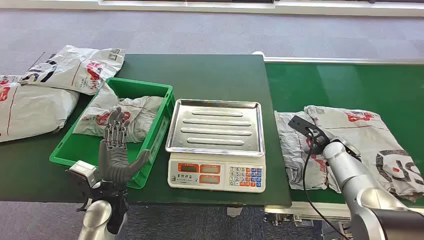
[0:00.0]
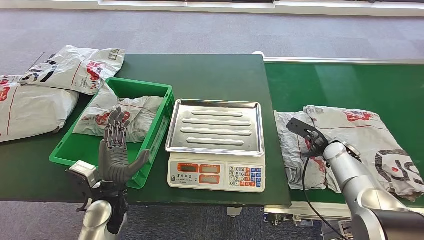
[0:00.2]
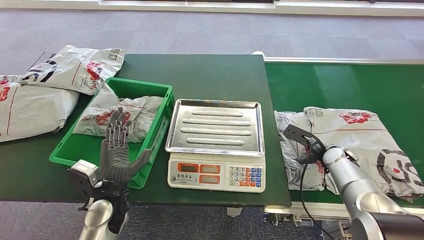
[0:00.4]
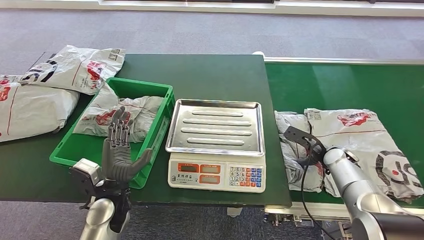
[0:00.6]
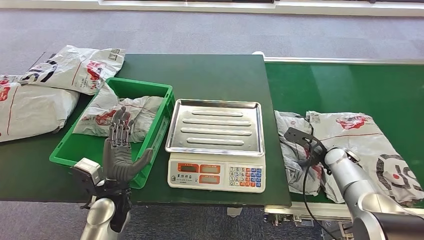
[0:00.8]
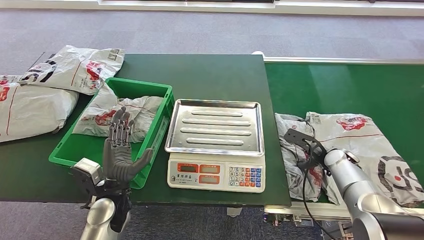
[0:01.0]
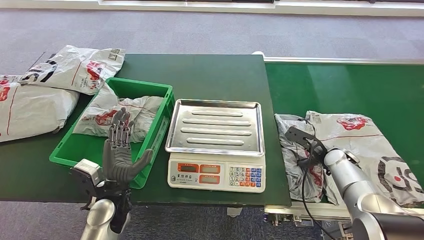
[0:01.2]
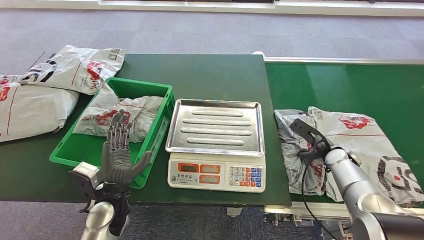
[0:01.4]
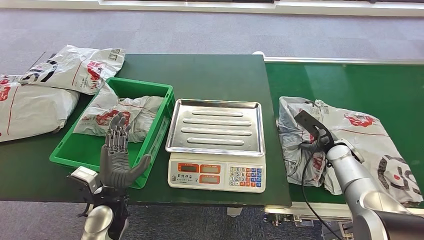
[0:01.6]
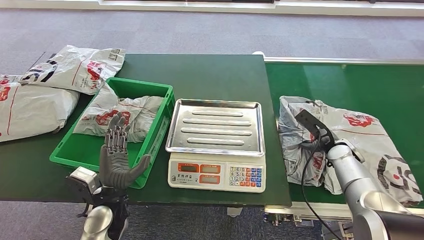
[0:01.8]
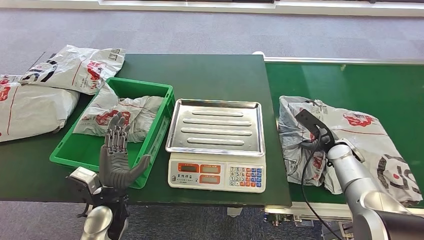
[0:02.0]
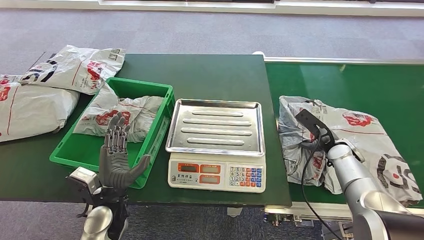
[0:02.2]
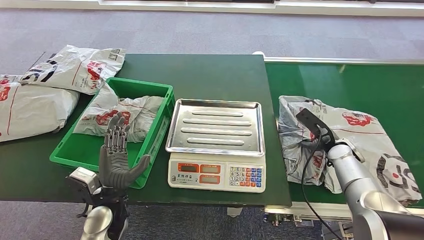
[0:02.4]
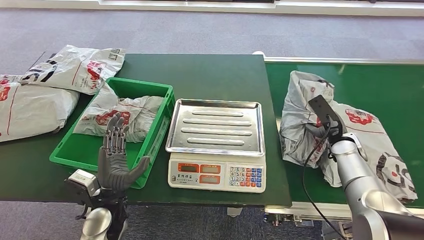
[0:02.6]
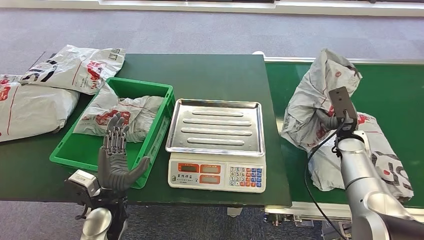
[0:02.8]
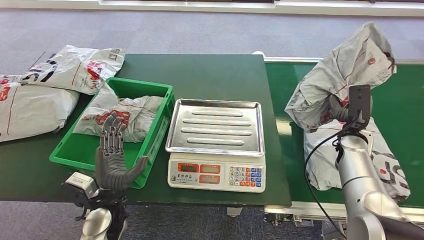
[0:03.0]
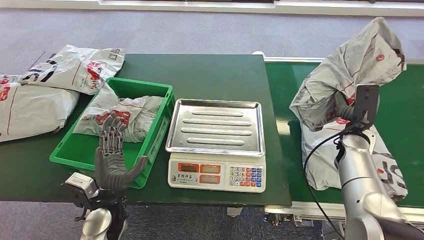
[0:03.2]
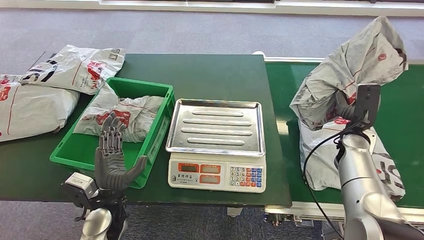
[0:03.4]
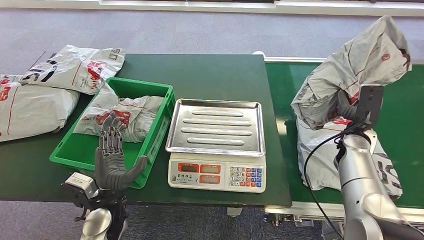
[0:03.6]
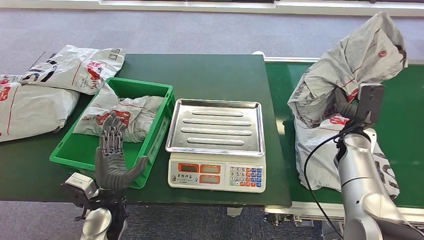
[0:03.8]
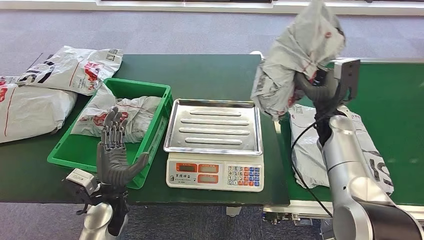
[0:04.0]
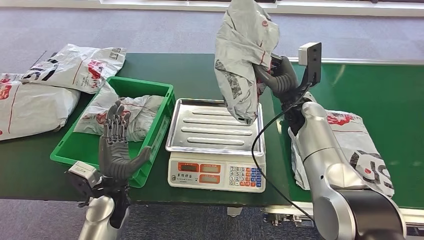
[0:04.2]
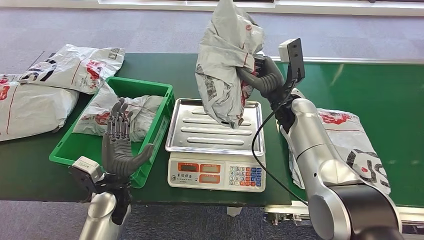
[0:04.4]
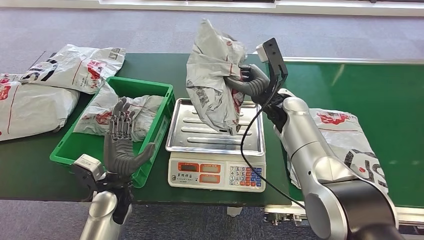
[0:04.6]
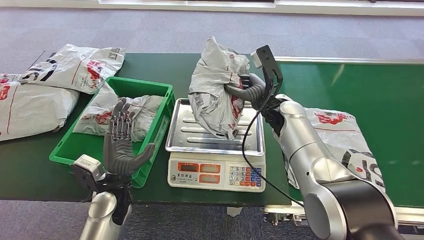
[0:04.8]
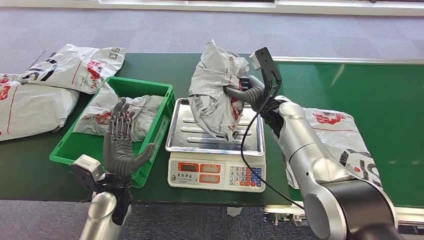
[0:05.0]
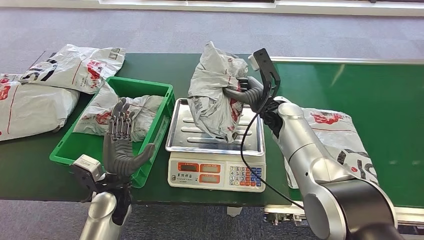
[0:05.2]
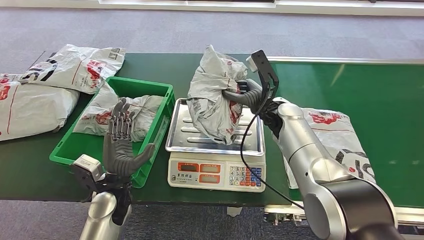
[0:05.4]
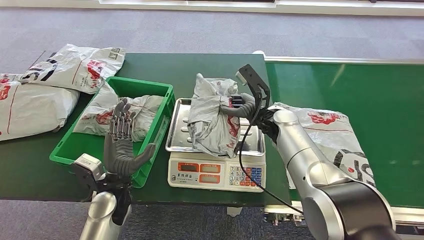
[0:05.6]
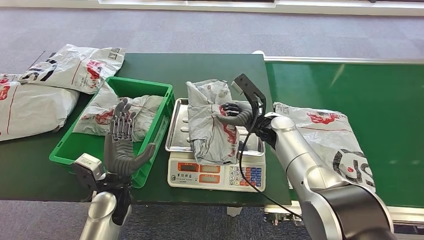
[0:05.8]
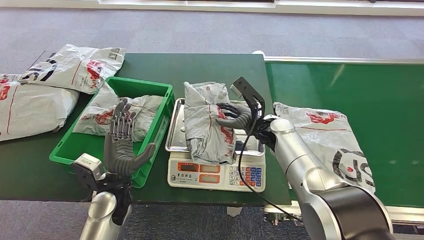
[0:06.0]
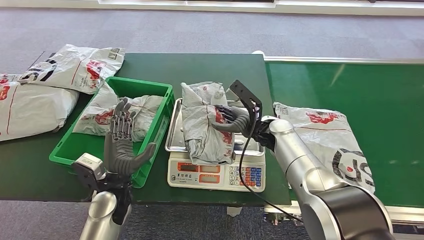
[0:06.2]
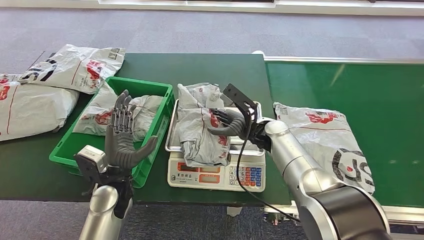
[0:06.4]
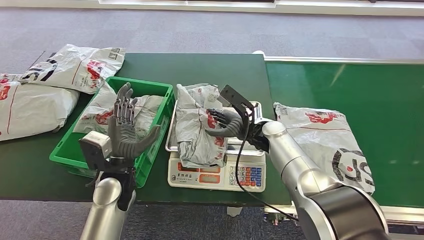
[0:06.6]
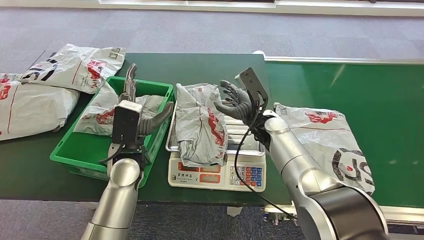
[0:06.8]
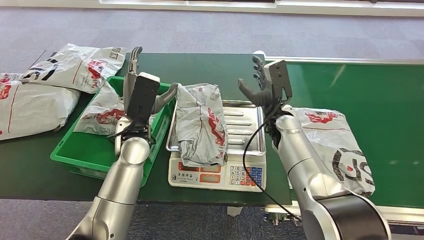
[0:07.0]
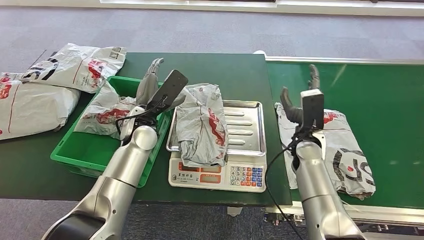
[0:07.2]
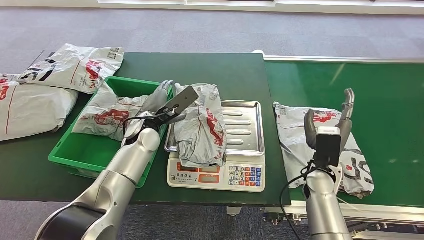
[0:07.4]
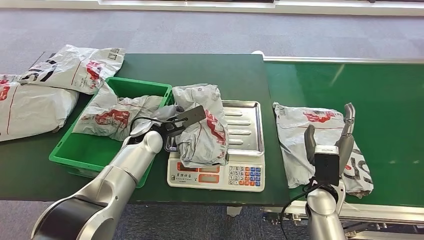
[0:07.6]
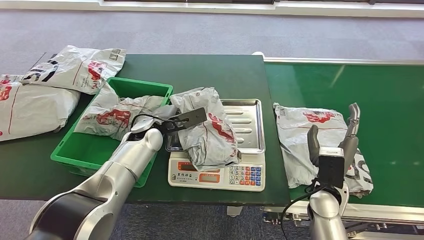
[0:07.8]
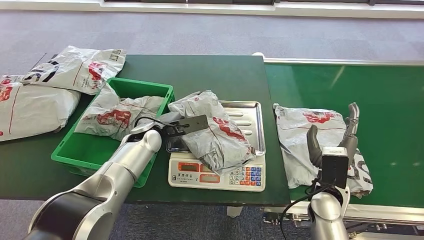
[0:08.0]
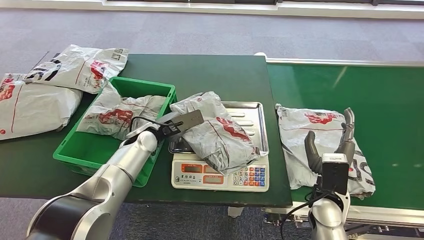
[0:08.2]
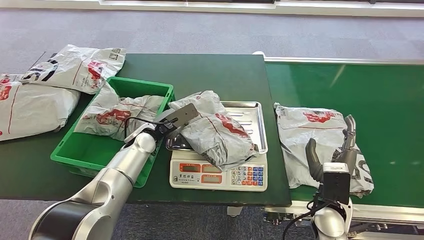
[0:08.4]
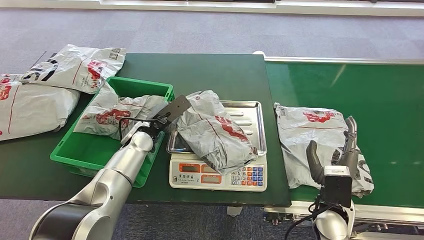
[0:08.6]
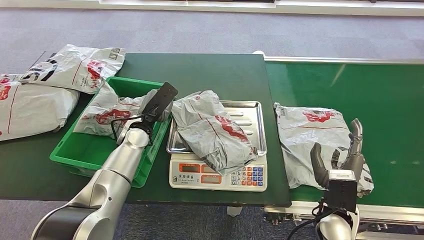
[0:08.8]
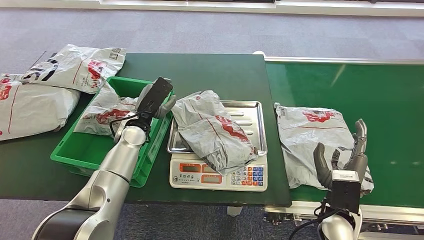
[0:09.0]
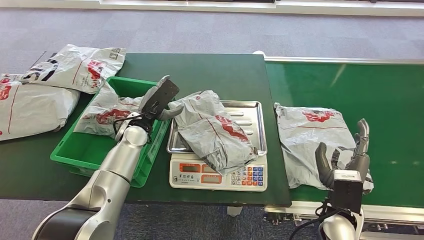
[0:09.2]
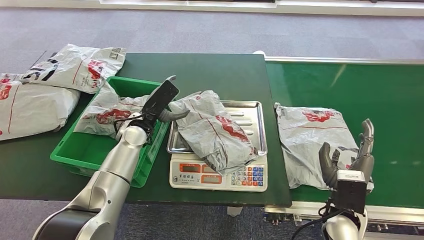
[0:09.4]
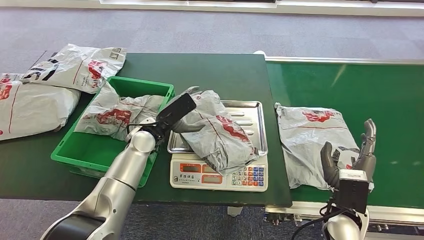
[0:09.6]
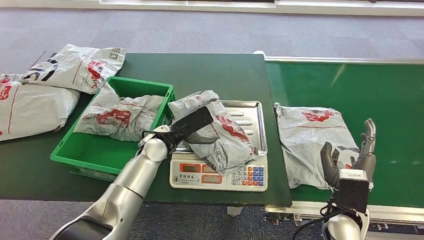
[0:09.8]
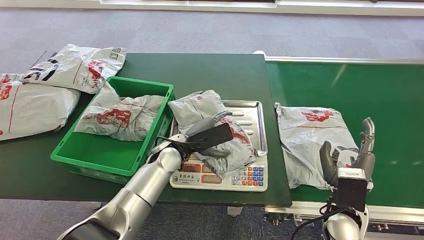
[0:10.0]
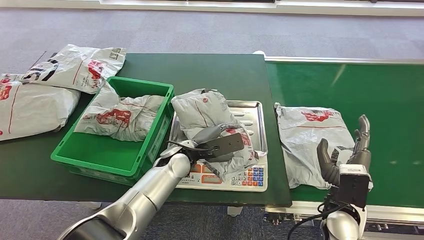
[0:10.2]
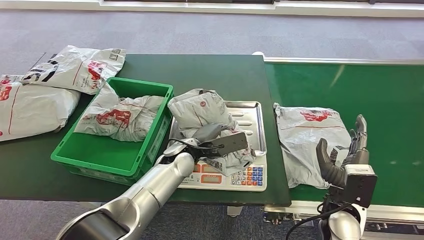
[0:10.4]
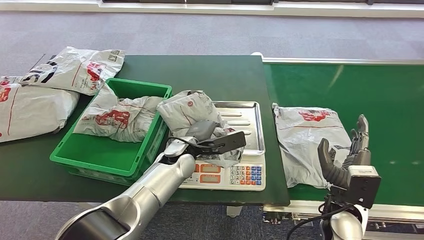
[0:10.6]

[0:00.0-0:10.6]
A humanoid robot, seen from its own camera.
Step, 0:00.0 to 0:04.0: Pick up the package from the conveyor belt.
Step, 0:04.4 to 0:07.4: Place the package onto the inbound machine.
0:04.6 to 0:06.0: The right hand heads downward, covering roughly 5 cm.
0:07.6 to 0:09.0: The right hand is displaced backward by about 5 cm.

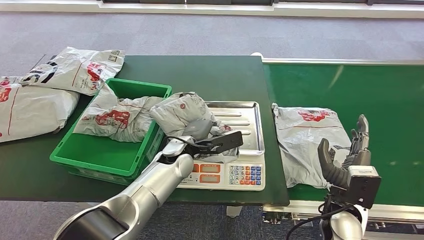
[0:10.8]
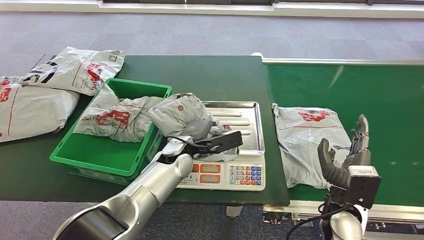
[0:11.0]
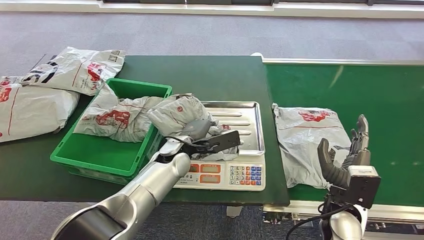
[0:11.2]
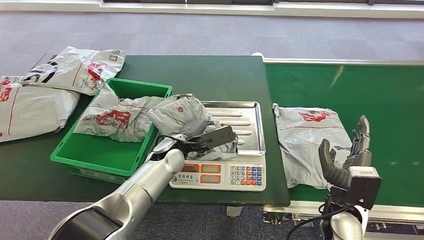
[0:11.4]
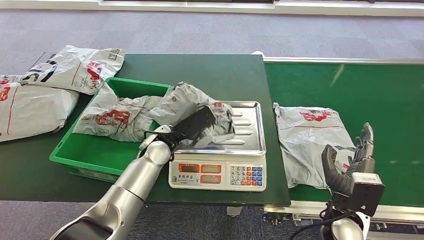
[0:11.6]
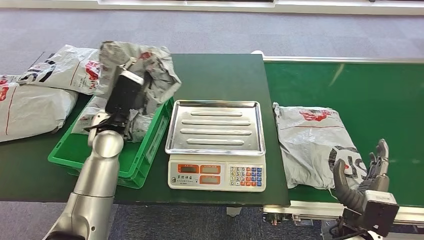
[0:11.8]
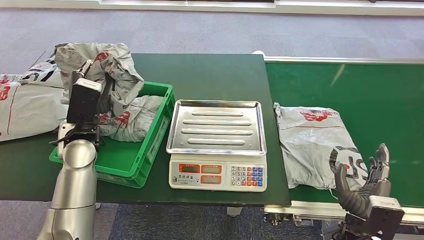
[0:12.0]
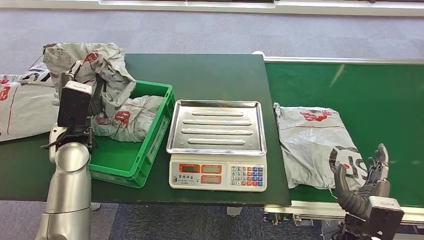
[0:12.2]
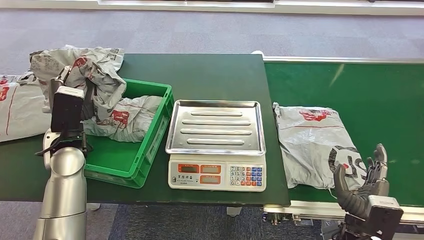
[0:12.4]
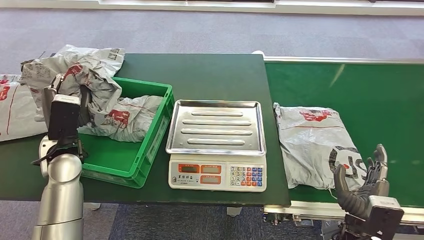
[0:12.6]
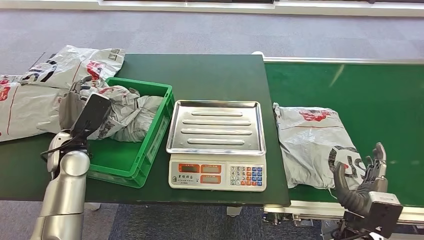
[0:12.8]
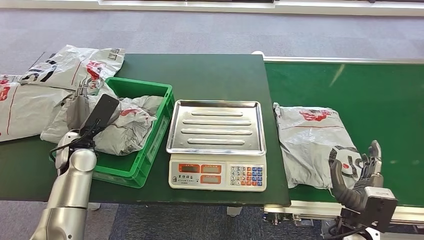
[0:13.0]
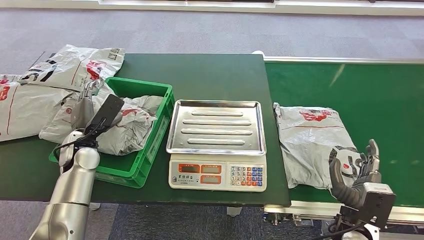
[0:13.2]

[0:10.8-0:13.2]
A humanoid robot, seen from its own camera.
Step, 0:12.0 to 0:13.2: Place the package into the parcel locker.
0:12.0 to 0:13.2: The left hand travels downward and to the left by approximately 10 cm.
